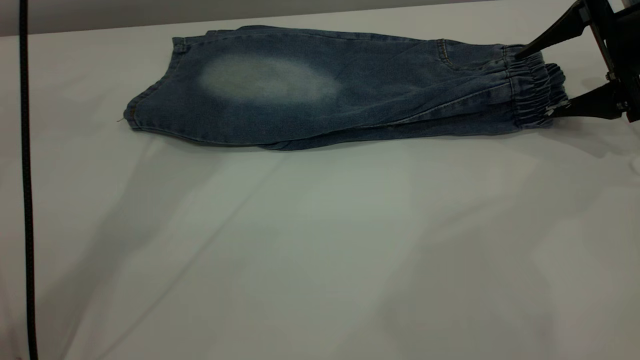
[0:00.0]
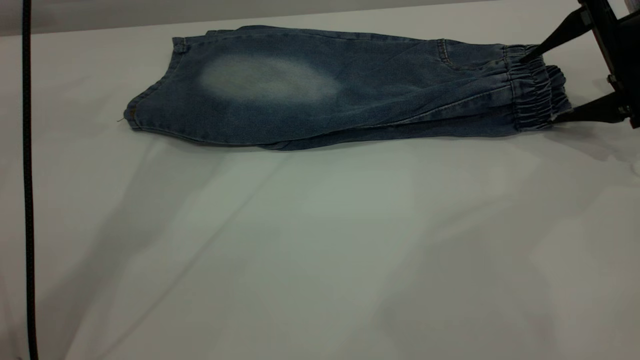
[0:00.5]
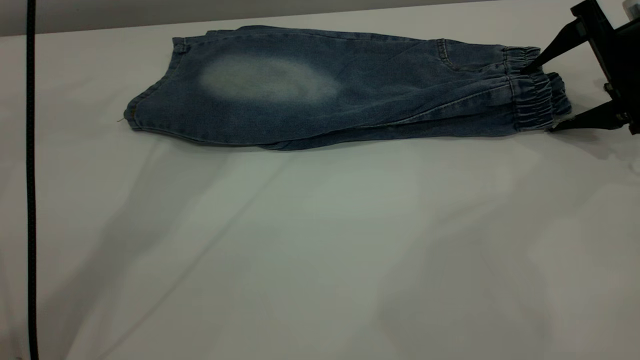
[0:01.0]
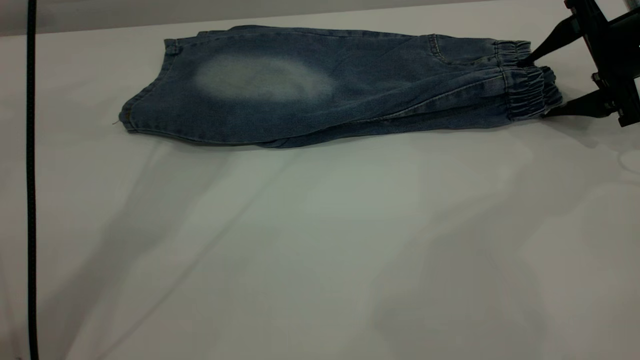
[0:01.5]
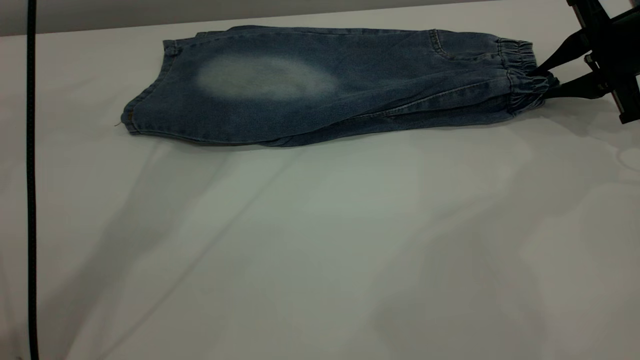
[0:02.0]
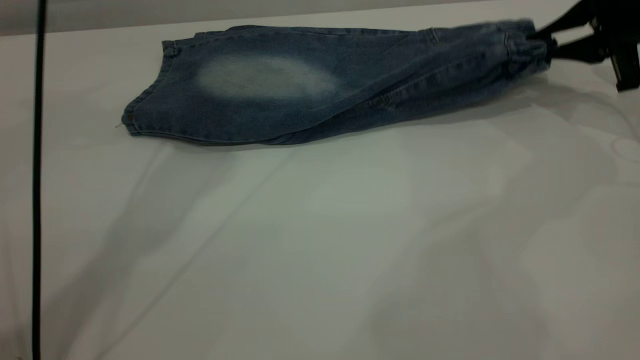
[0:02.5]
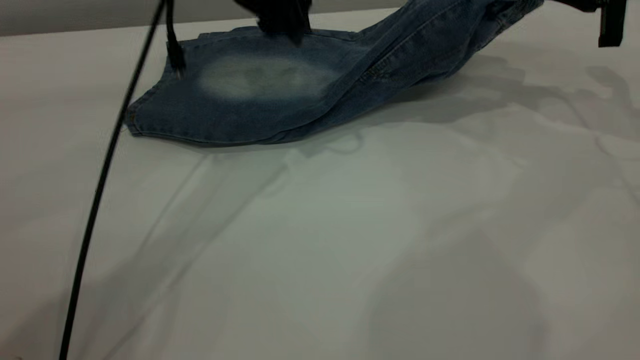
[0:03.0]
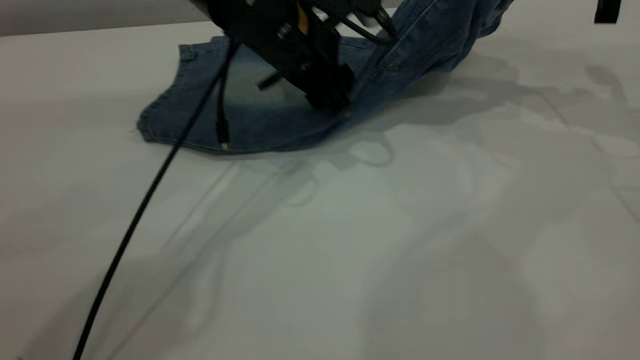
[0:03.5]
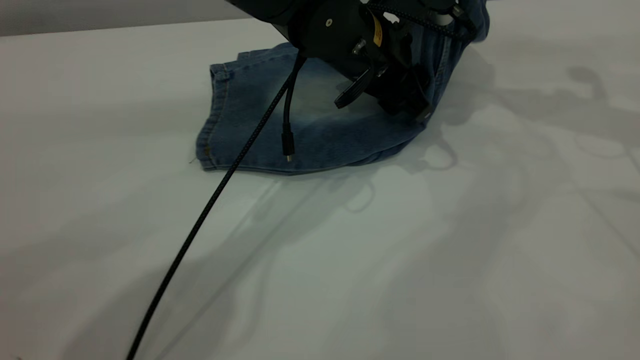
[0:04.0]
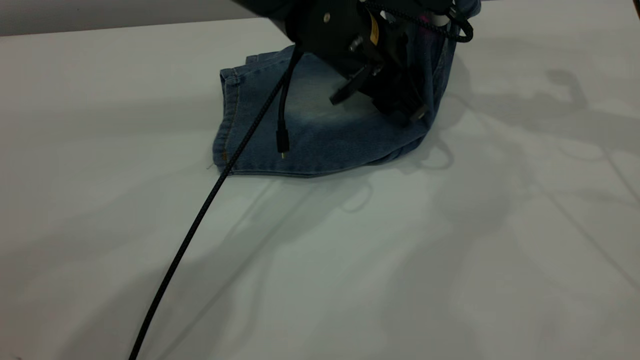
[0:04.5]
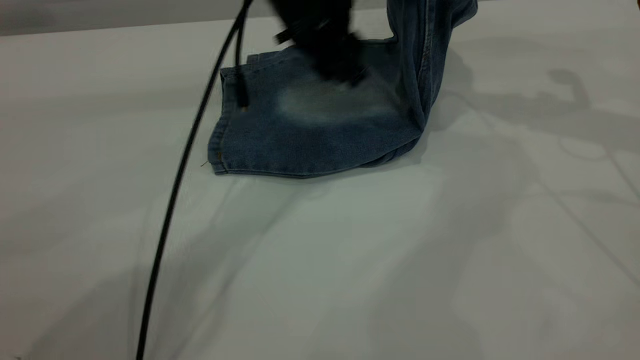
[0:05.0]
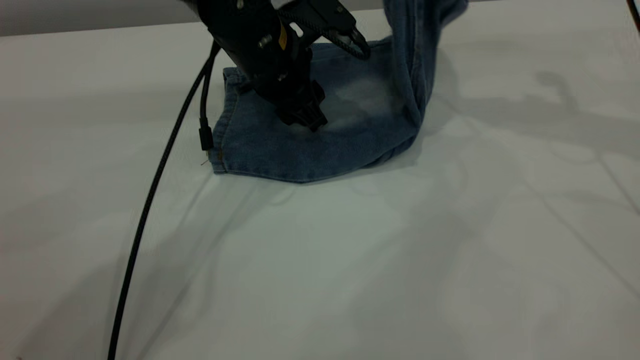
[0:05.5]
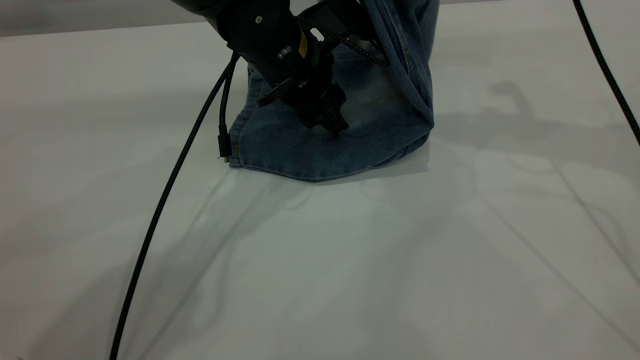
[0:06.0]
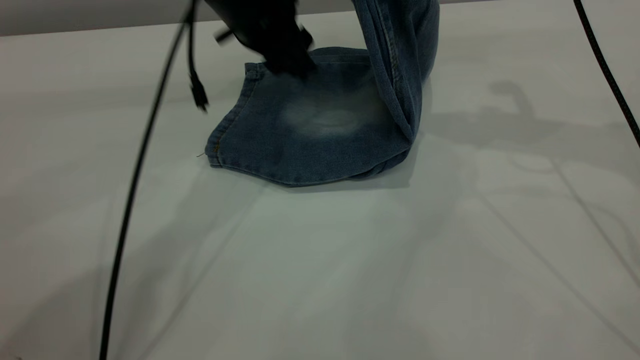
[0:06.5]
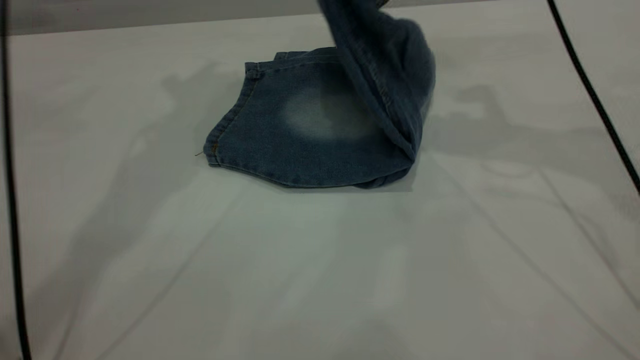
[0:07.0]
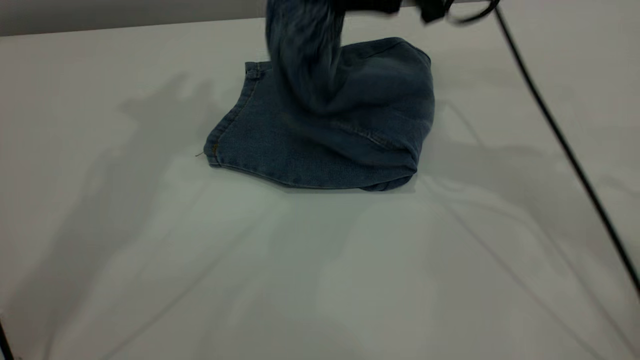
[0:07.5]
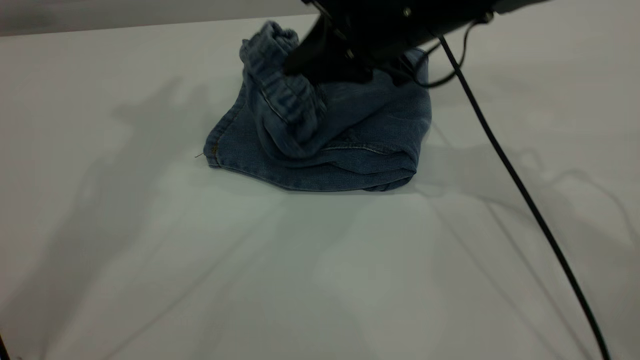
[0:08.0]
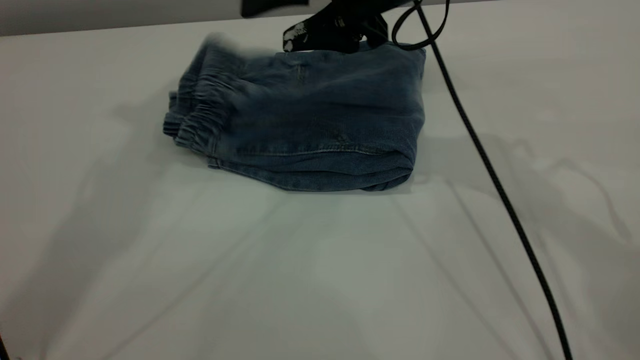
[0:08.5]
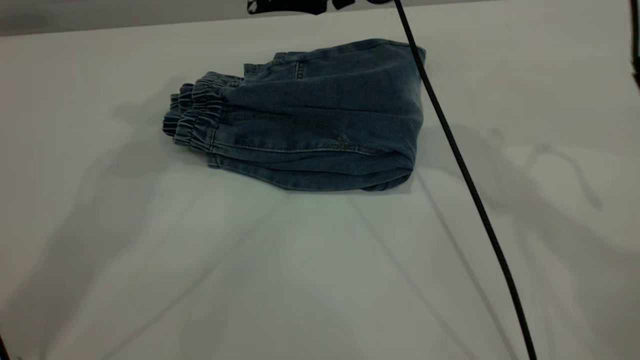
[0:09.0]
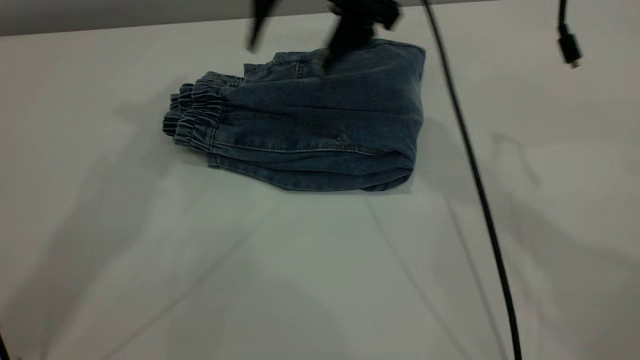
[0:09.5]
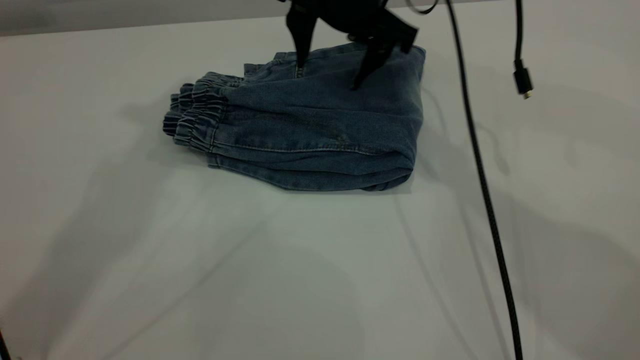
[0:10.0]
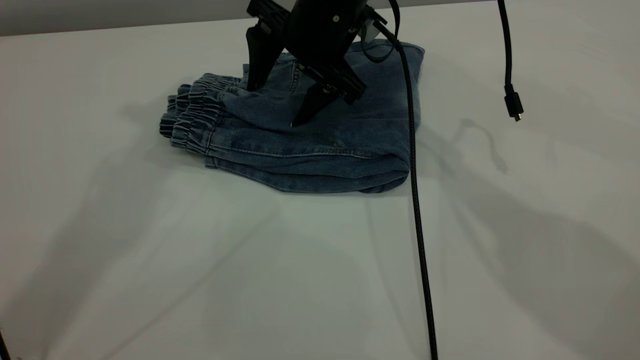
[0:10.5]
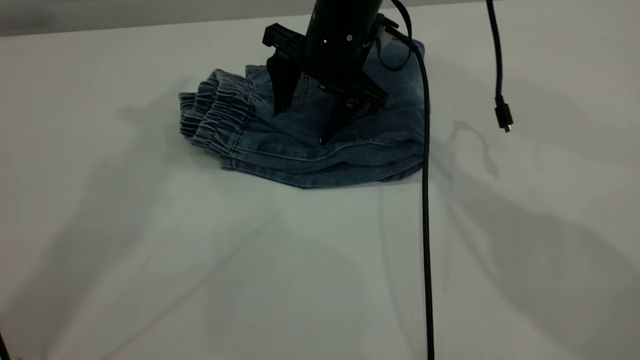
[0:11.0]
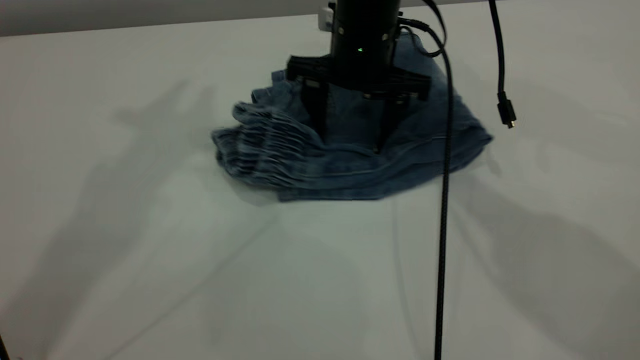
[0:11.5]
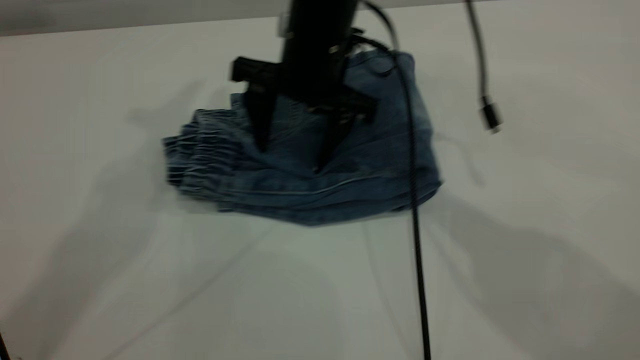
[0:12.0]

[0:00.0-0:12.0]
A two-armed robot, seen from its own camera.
Step, 0.0 to 8.5 s: Fold your pants from right to left.
0.0 to 2.0 s: The right gripper closes its fingers.
2.0 to 4.0 s: The right gripper travels upward by about 15 cm. The left gripper is displaced downward and to the right by about 25 cm.
4.0 to 6.0 s: The two grippers go some 10 cm to the left.
6.0 to 8.0 s: The left gripper travels upward and to the left by approximately 40 cm, while the right gripper goes approximately 15 cm to the left and downward.
8.0 to 10.0 s: The right gripper heads forward, covering some 5 cm, and opens.
10.0 to 12.0 s: The right gripper goes roughly 5 cm backward.

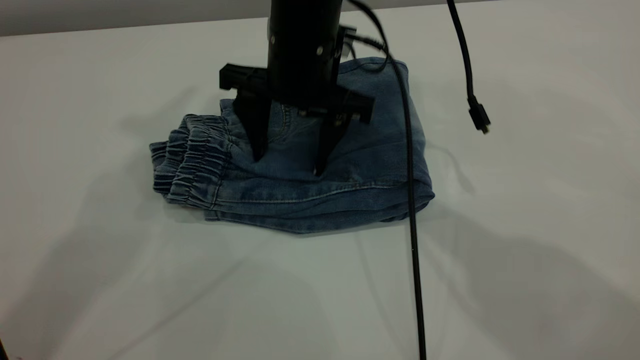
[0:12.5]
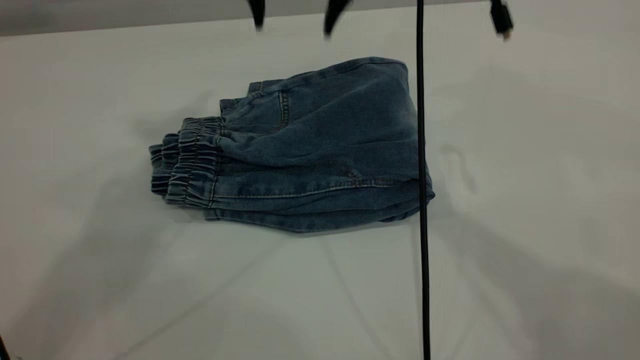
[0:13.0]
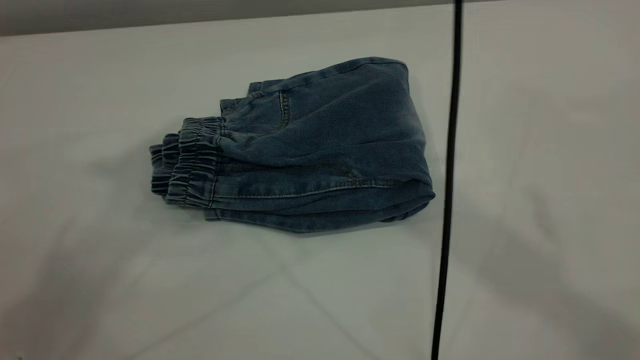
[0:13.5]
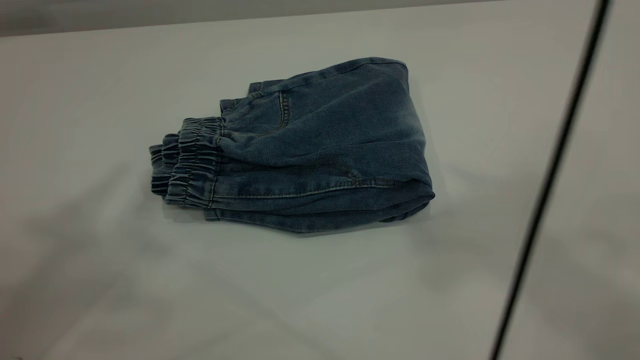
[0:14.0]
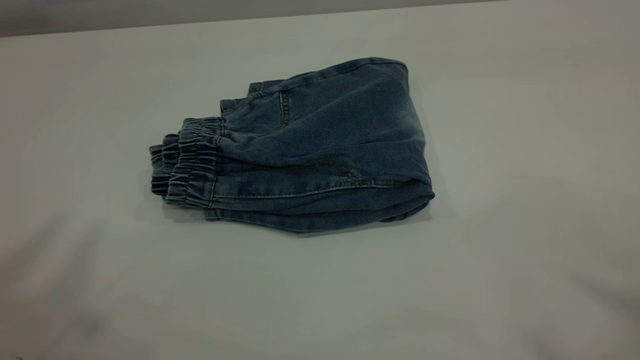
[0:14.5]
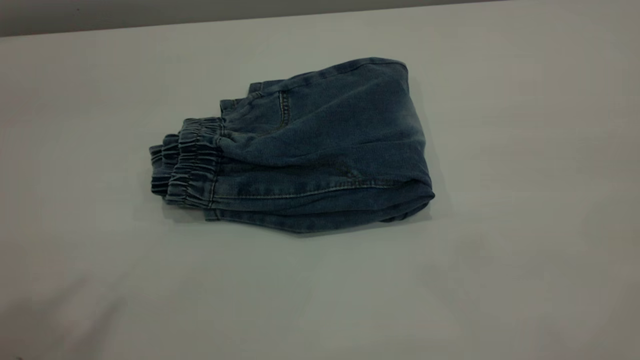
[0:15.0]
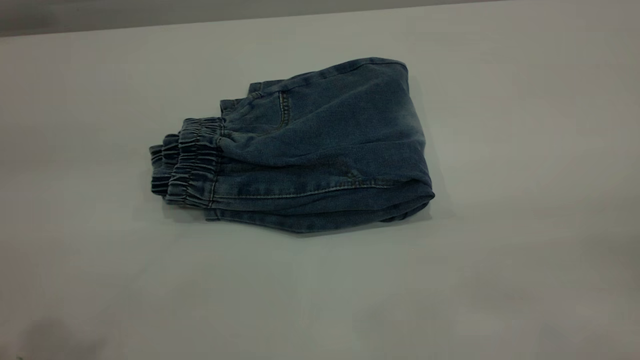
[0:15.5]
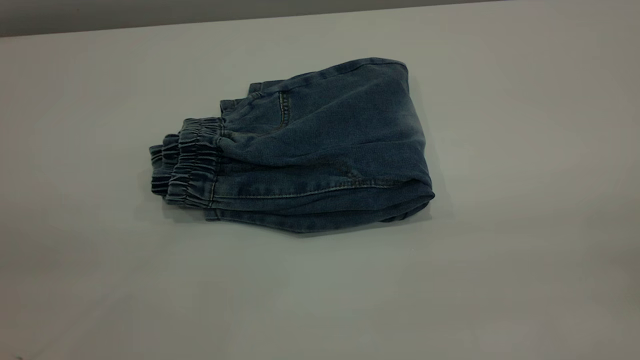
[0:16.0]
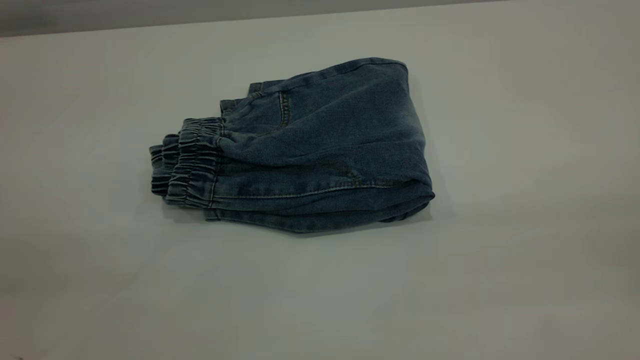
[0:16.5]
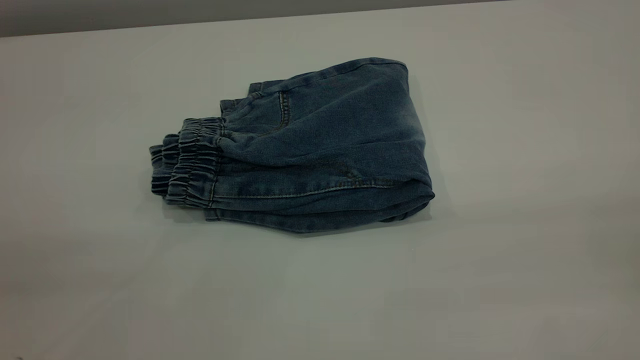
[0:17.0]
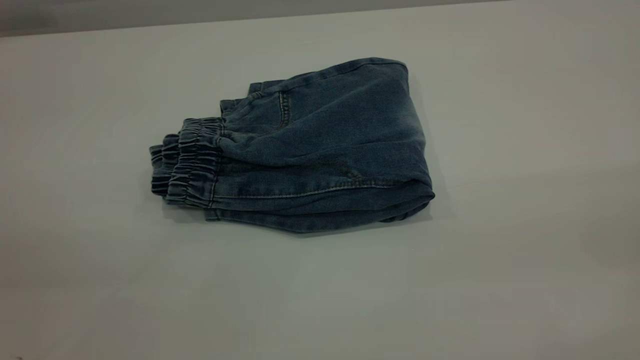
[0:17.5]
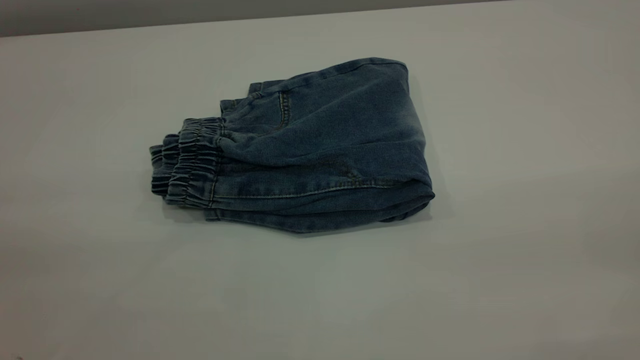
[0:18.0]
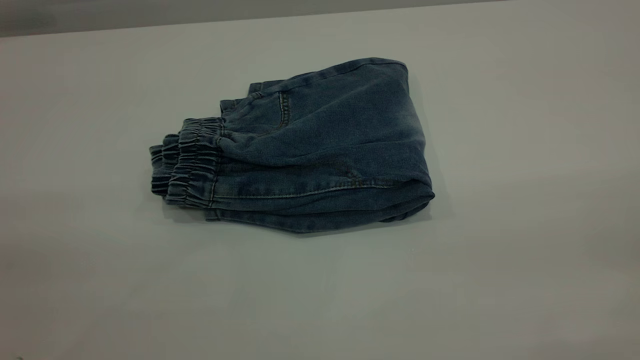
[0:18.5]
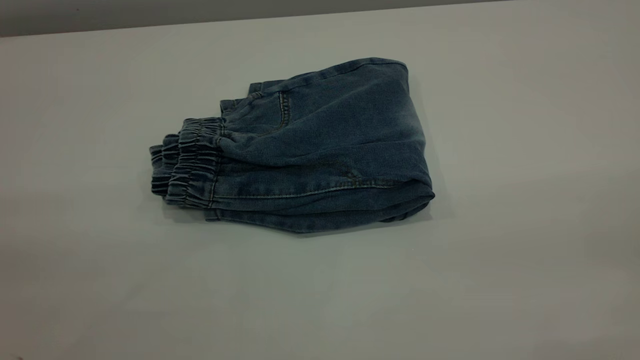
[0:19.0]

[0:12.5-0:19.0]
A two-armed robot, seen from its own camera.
12.5 to 14.5 s: The right gripper travels upward, backward and to the right by roughly 50 cm. The left gripper shifts about 20 cm backward and upward.

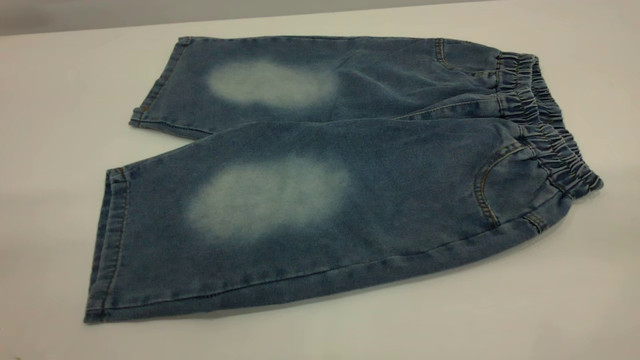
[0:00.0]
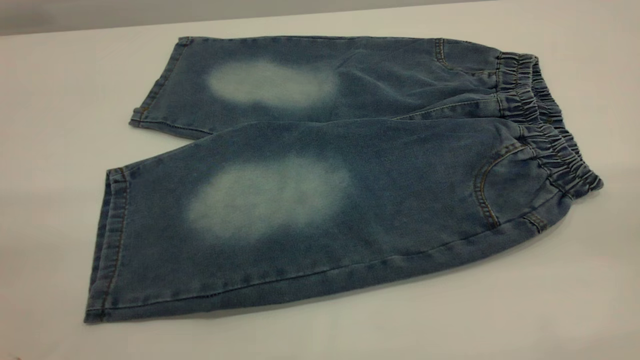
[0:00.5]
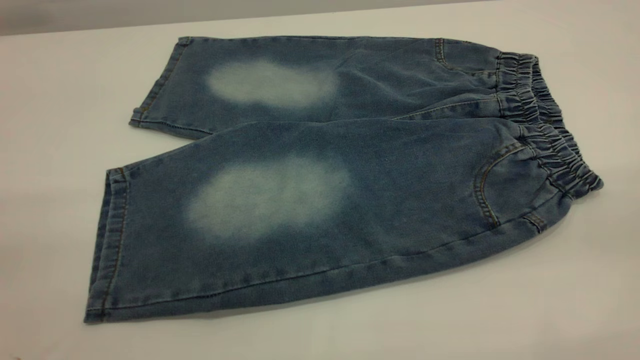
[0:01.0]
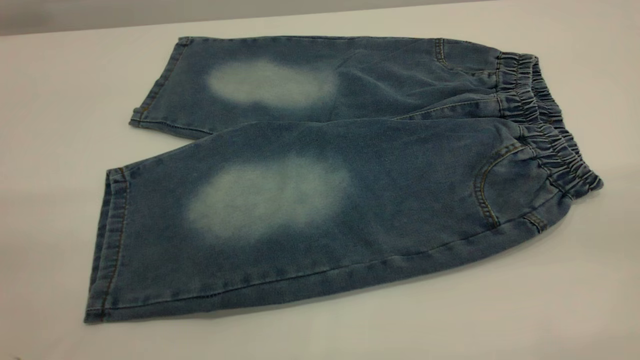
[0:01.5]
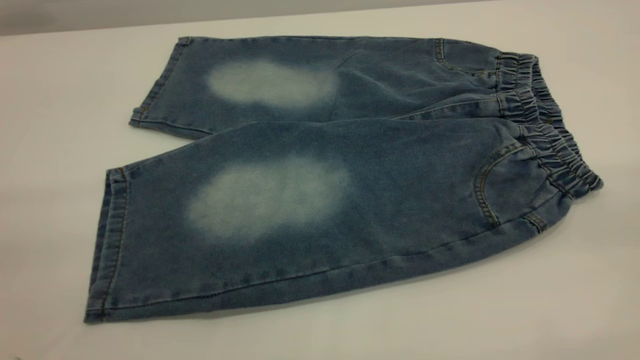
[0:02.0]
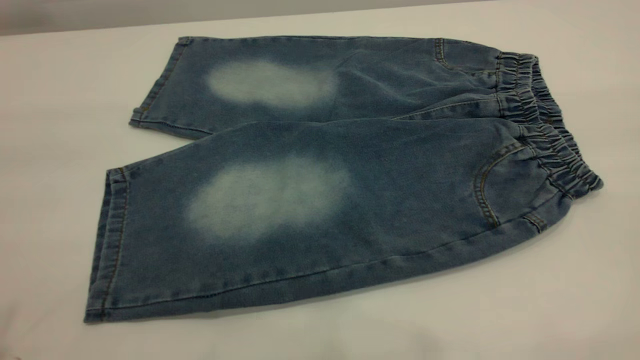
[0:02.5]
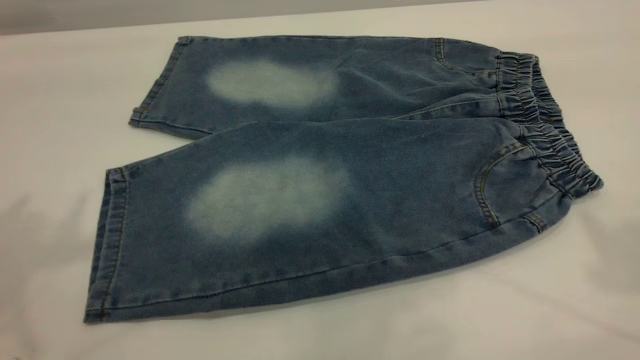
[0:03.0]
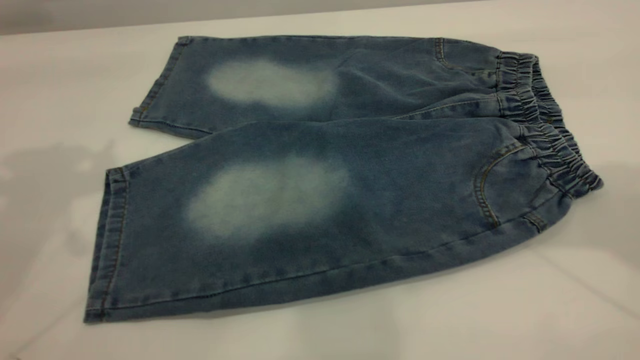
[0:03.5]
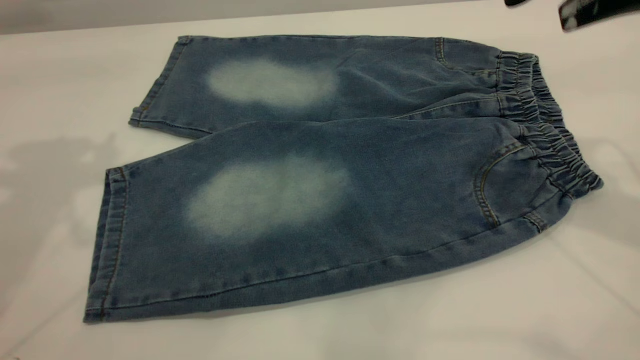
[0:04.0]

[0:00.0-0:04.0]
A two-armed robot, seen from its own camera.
0.0 to 2.0 s: The two grippers keep their place.
2.0 to 4.0 s: The right gripper travels forward by approximately 30 cm.
